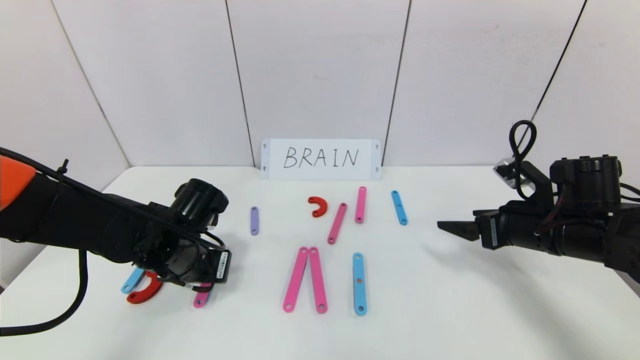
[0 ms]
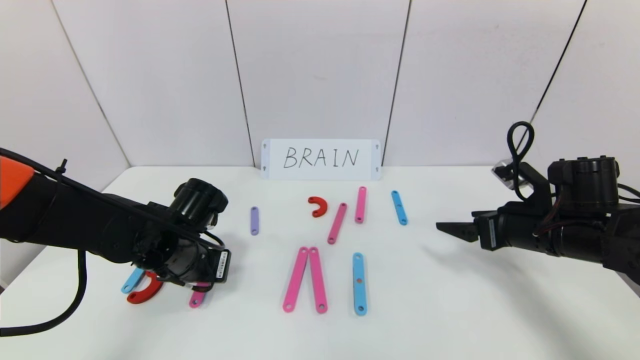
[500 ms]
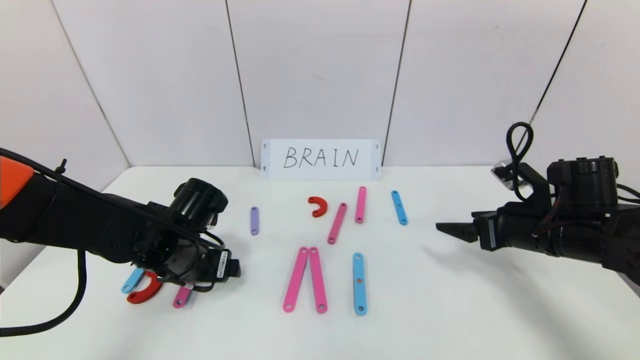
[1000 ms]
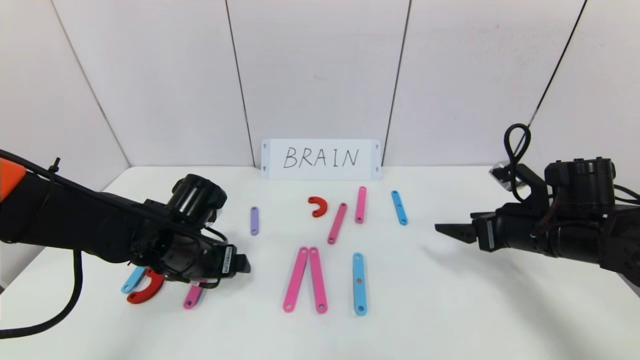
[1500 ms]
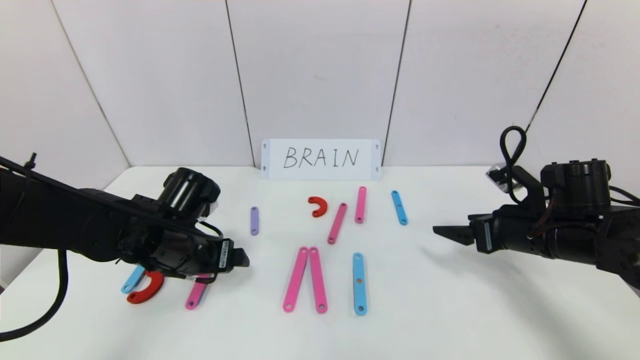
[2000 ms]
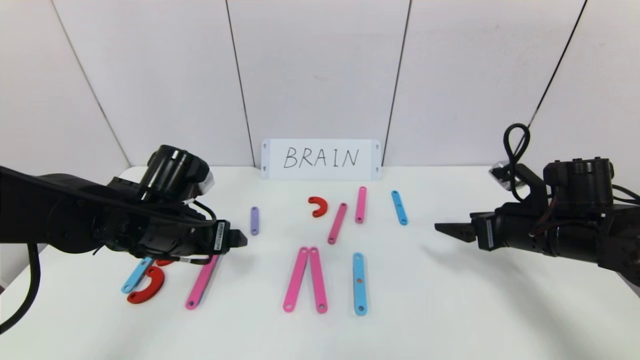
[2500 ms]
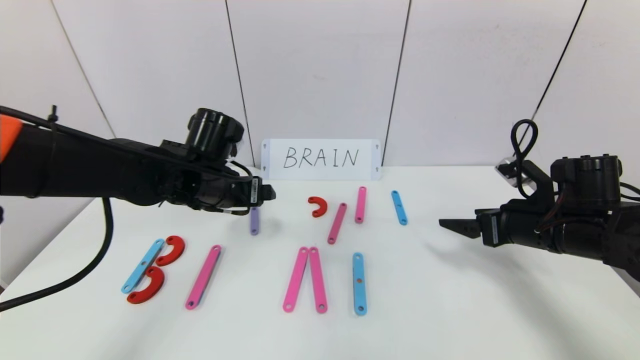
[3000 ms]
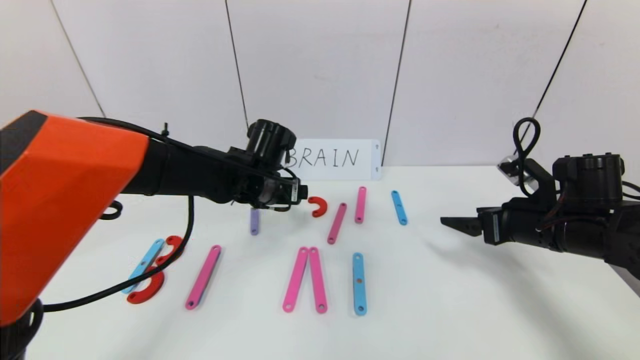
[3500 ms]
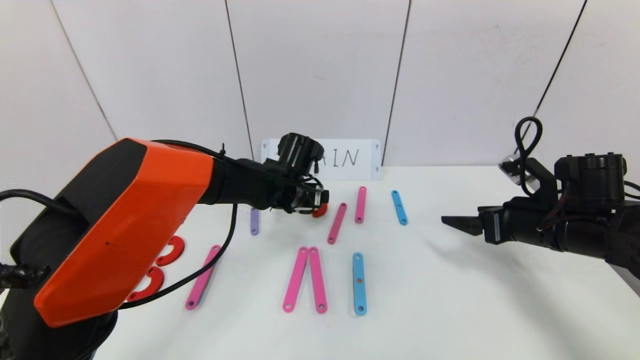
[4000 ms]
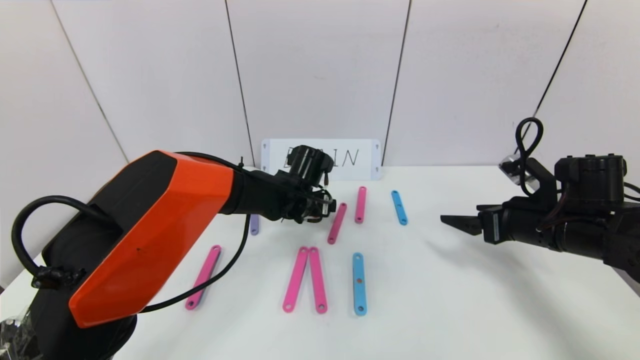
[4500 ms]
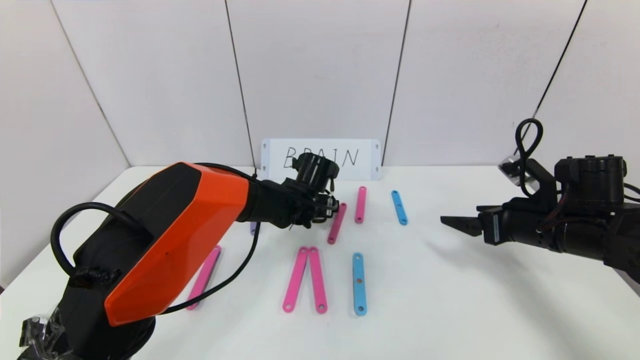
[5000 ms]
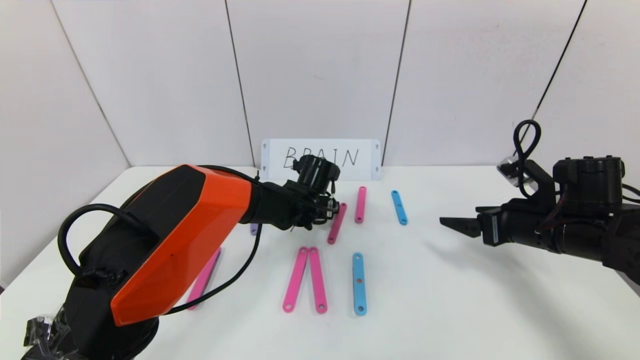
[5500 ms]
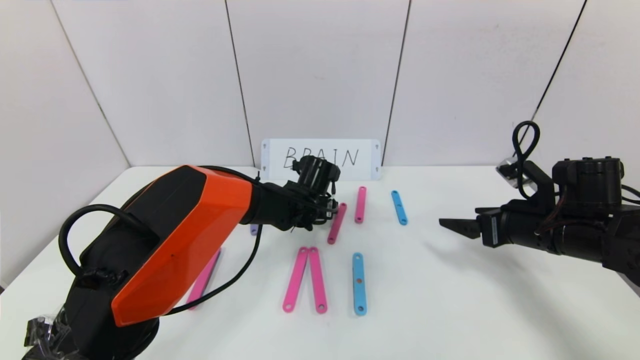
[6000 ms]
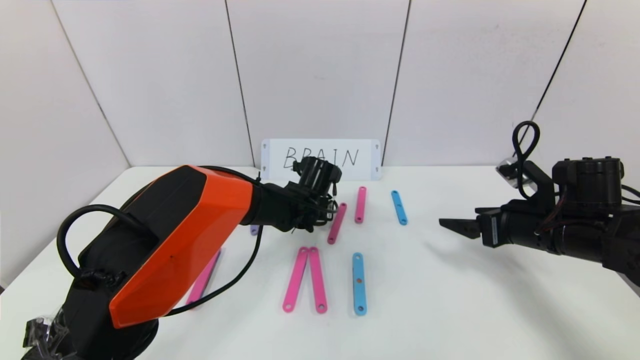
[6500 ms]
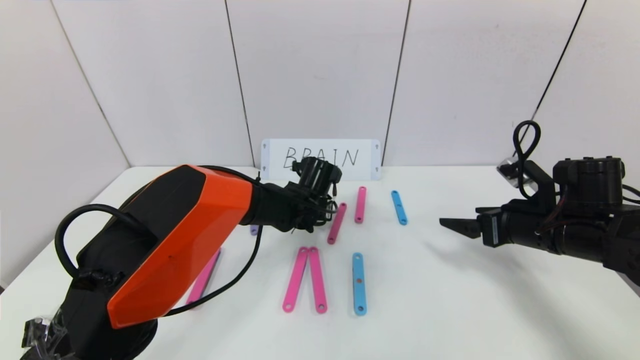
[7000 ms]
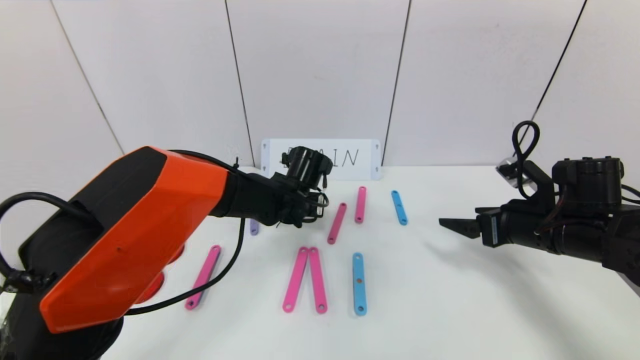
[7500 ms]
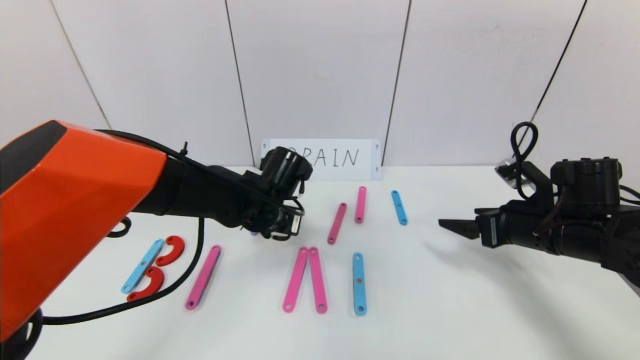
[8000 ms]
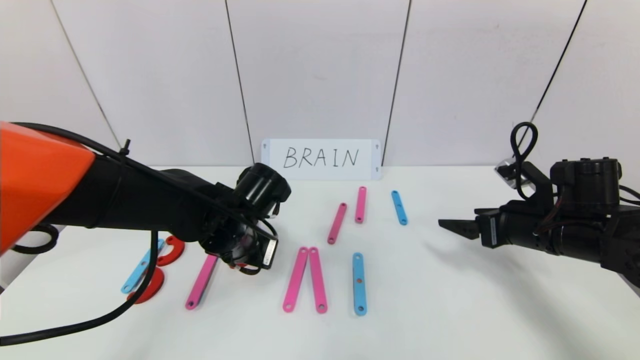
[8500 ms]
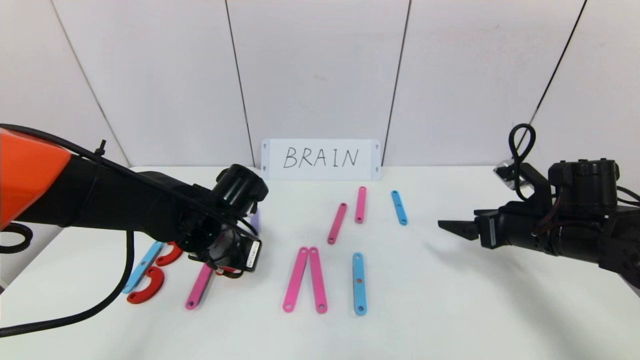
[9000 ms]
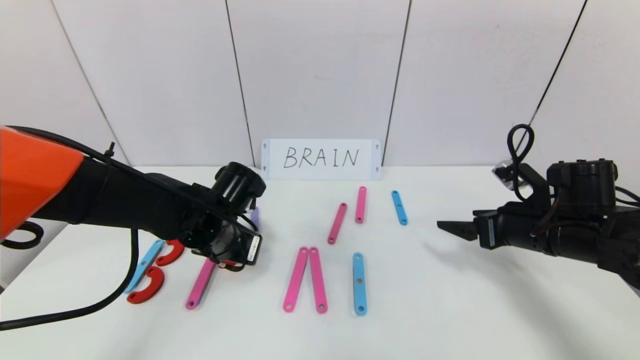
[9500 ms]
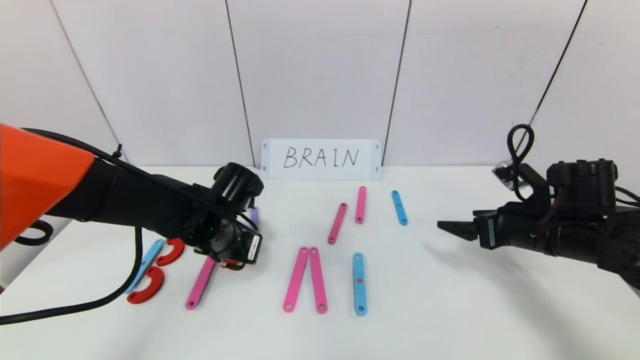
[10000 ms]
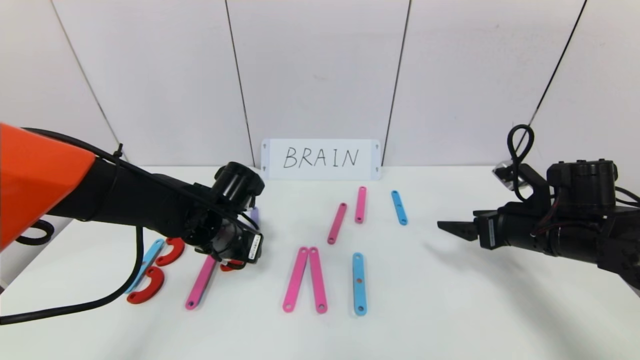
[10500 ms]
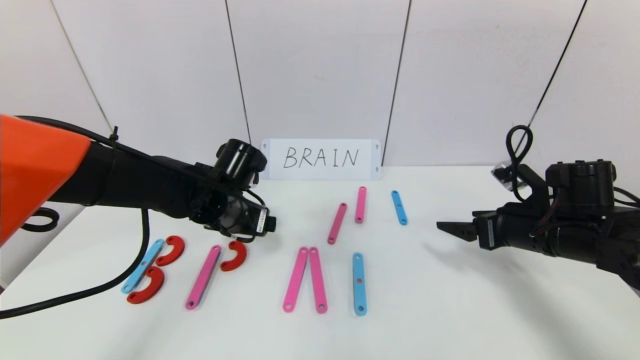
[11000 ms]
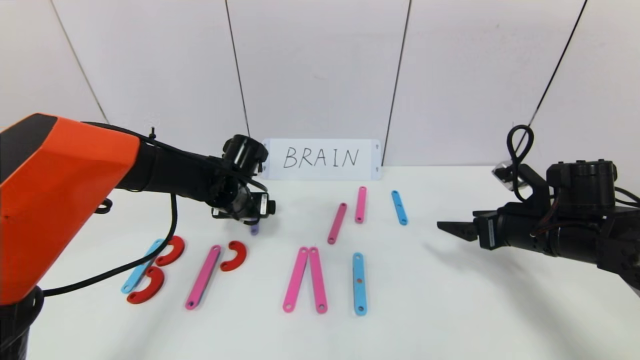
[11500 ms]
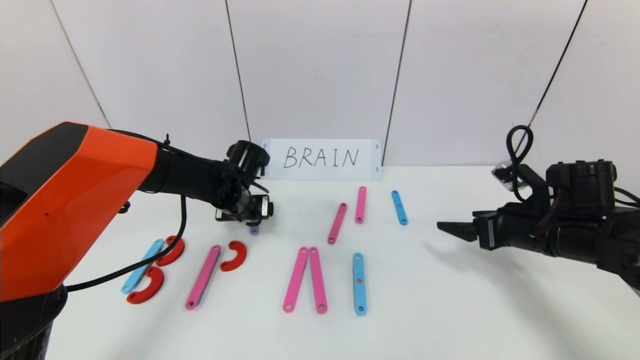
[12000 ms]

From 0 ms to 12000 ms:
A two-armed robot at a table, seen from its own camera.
Task of the whole recording: rearrange the word baai as brain.
From 0 ms to 2000 ms: The left gripper opens up.
From 2000 ms to 4000 ms: The left gripper shifts approximately 20 cm to the right and forward.
From 4000 ms to 6000 ms: The left gripper ends up approximately 5 cm from where it was.
From 6000 ms to 8000 ms: The left gripper shifts about 10 cm backward, to the left and upward, and closes its fingers.
From 8000 ms to 10000 ms: The left gripper shifts approximately 5 cm to the left.
From 10000 ms to 12000 ms: The left gripper is displaced forward by roughly 10 cm, and opens its fingers.

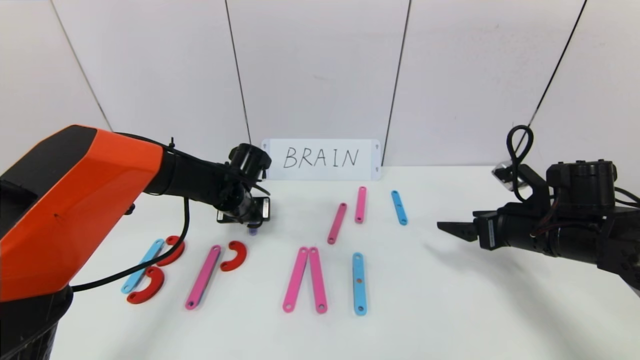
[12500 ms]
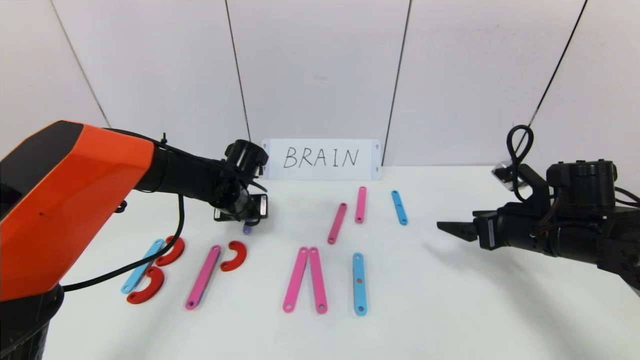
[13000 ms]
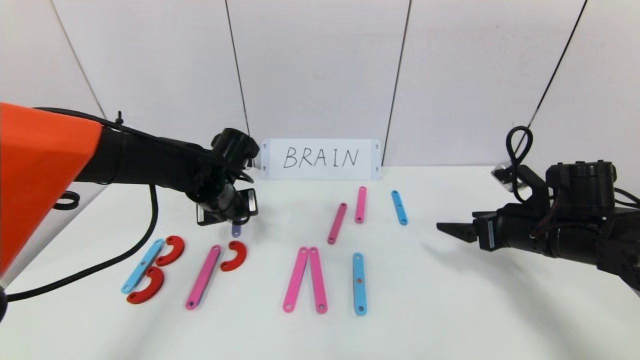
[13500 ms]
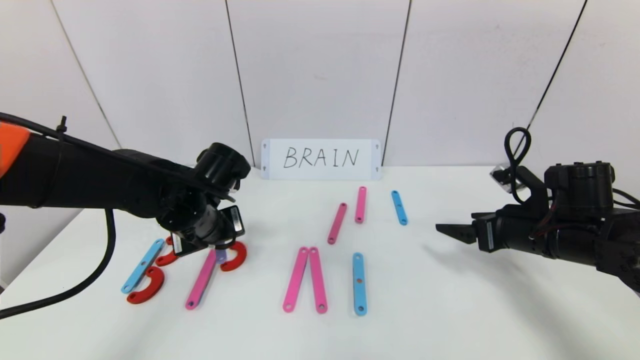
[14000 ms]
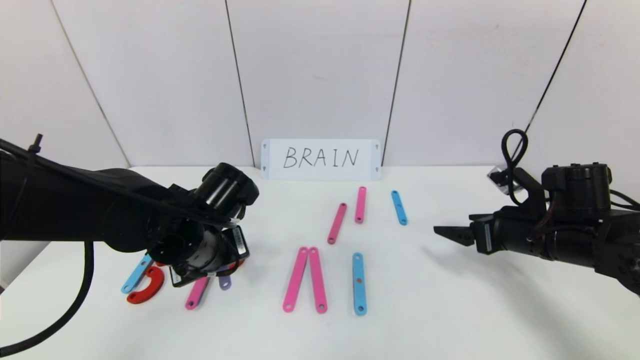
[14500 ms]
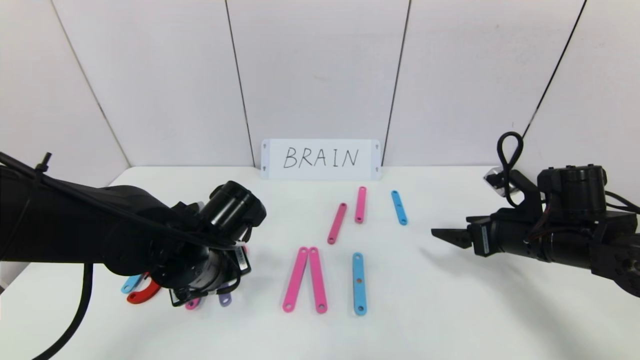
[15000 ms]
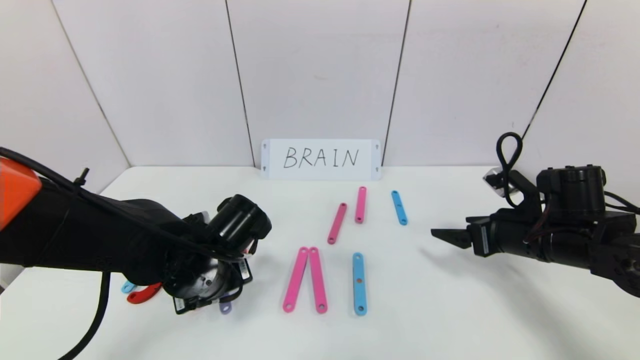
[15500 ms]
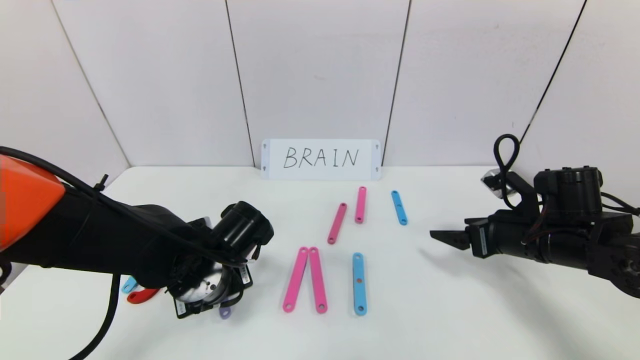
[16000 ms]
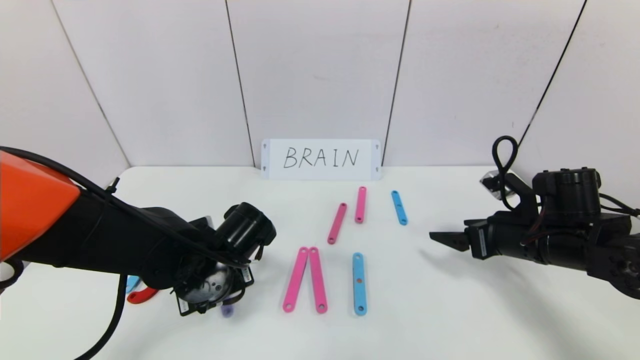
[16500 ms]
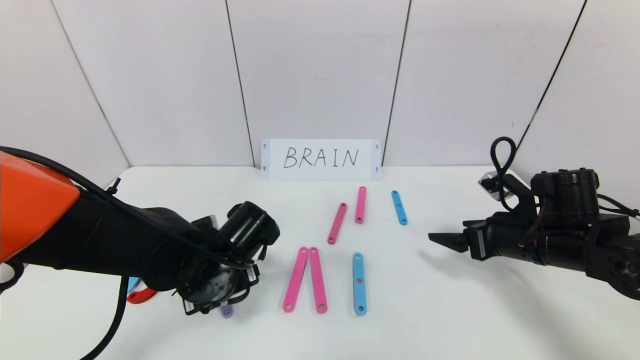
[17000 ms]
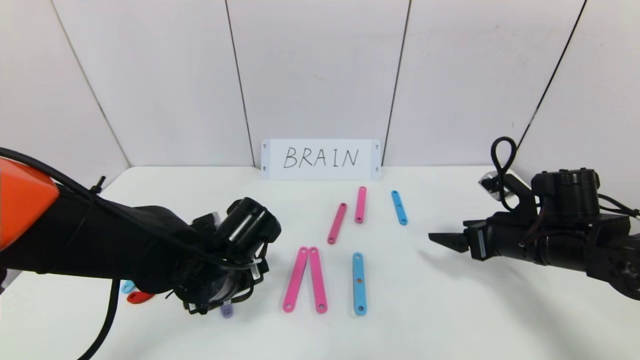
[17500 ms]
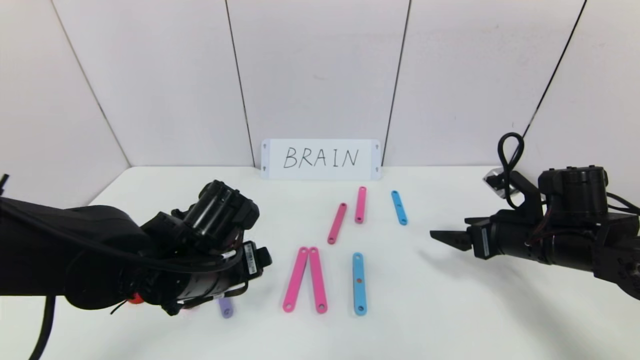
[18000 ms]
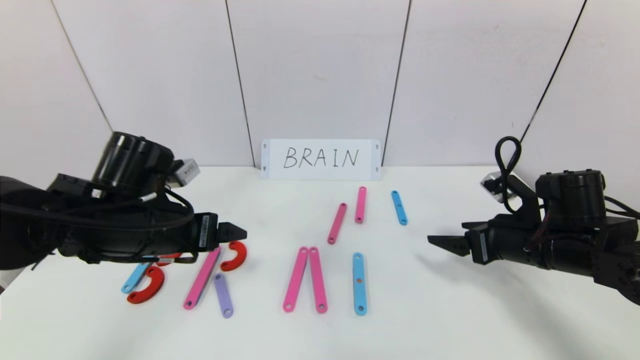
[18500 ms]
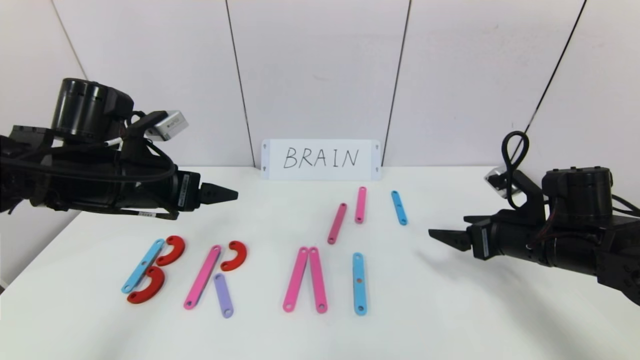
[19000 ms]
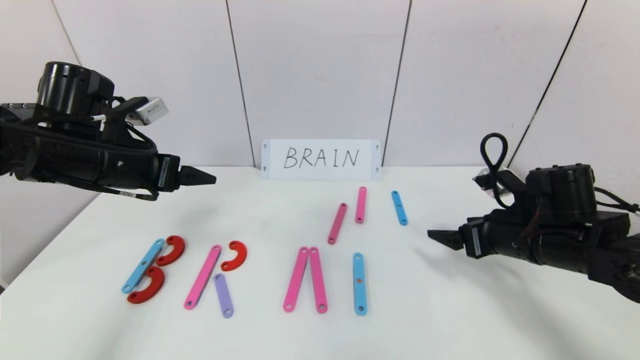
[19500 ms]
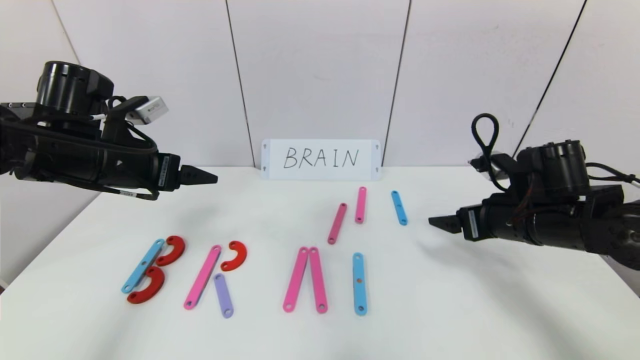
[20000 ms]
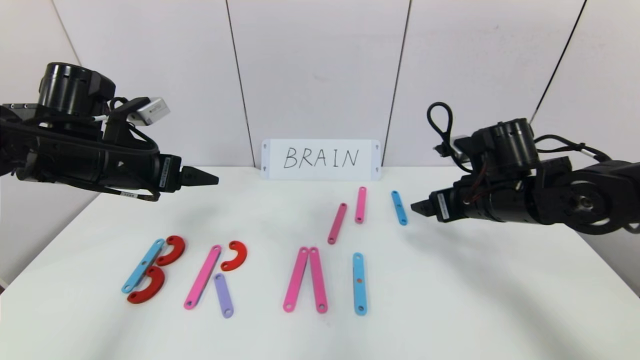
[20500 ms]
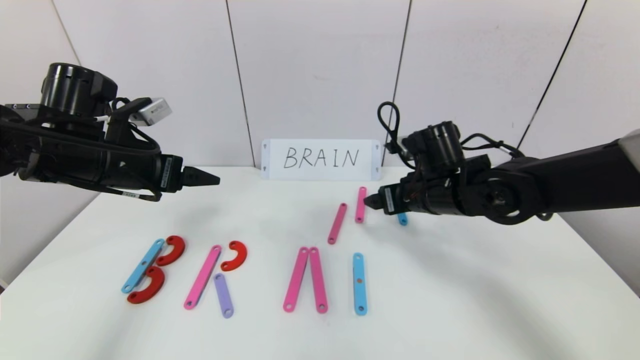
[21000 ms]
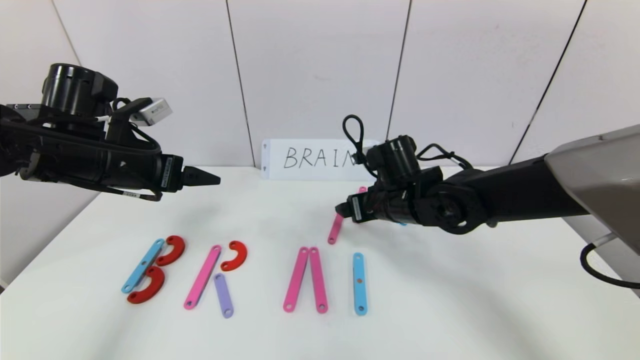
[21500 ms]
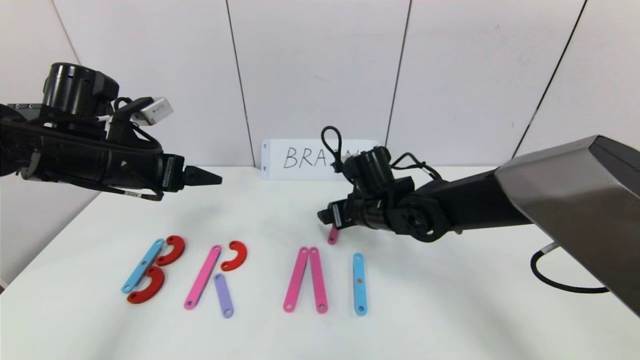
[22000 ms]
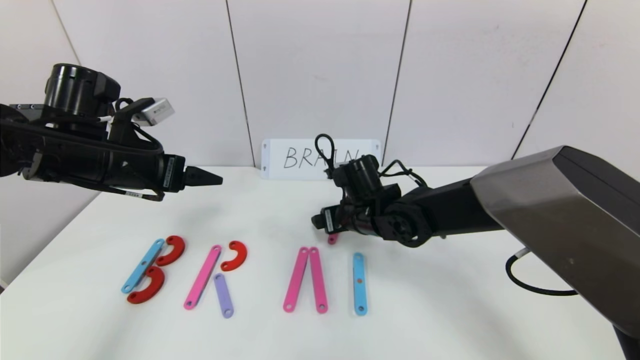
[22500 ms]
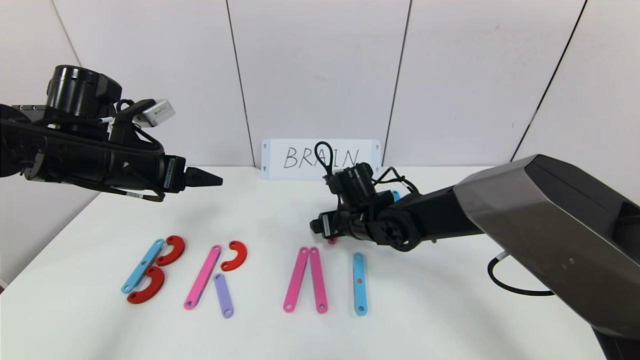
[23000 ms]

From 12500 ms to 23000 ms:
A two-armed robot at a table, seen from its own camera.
Task of the whole recording: rearrange the word baai as brain.
Step, from 12500 ms to 17000 ms: Place the character R between first character B and third character A.
From 12500 ms to 14500 ms: The left gripper is displaced backward by approximately 15 cm.
From 14500 ms to 16500 ms: The left gripper changes place by approximately 5 cm.
From 16500 ms to 19000 ms: The left gripper heads upward and to the left, covering some 15 cm, and opens its fingers.
From 19000 ms to 21000 ms: The right gripper shifts about 15 cm to the left and forward.
From 21000 ms to 23000 ms: The right gripper shifts roughly 15 cm to the left and downward.
